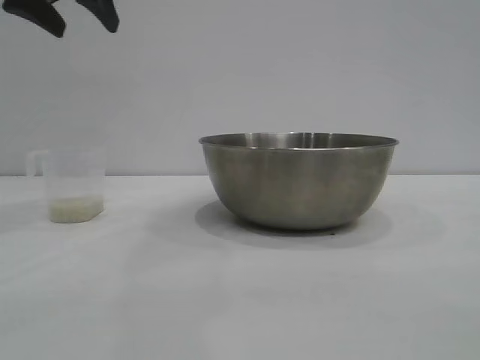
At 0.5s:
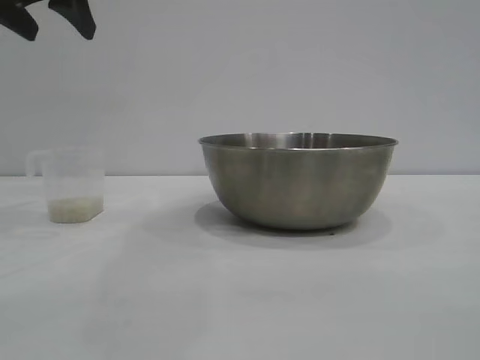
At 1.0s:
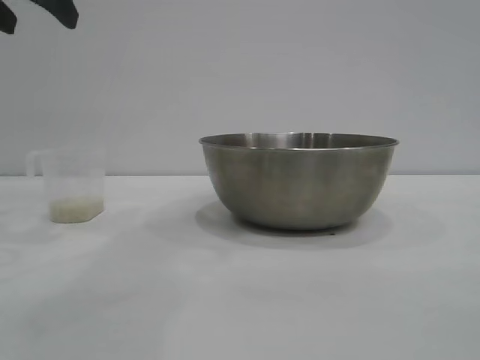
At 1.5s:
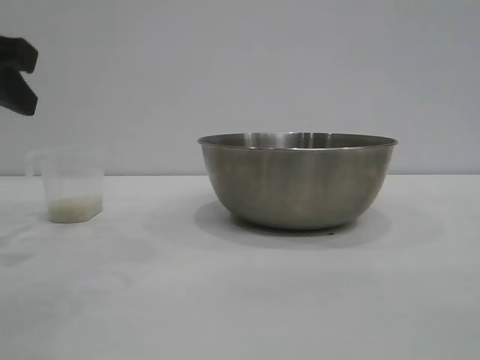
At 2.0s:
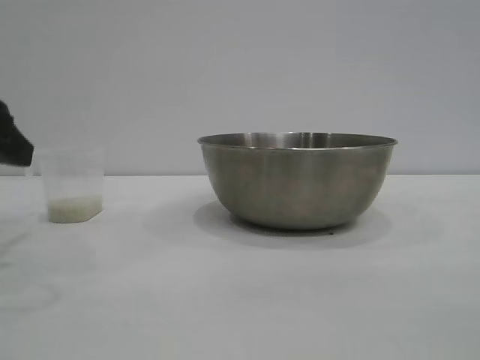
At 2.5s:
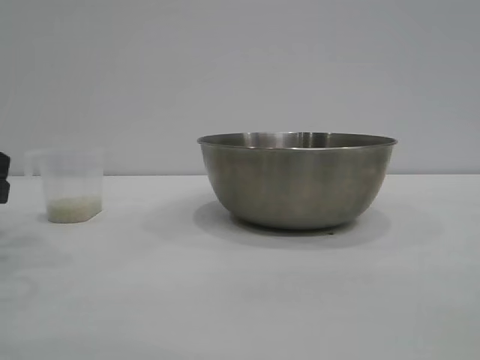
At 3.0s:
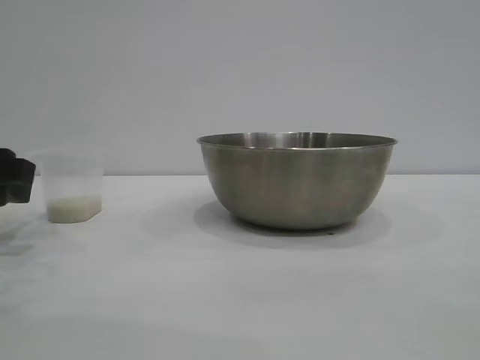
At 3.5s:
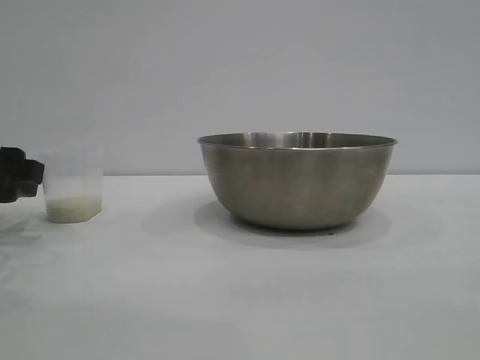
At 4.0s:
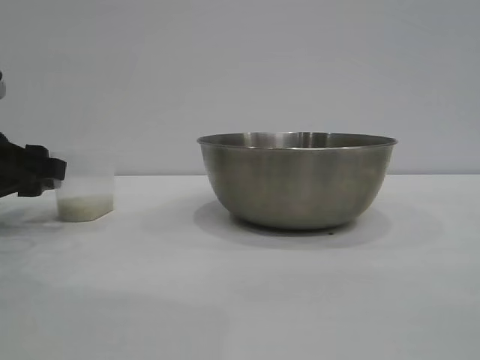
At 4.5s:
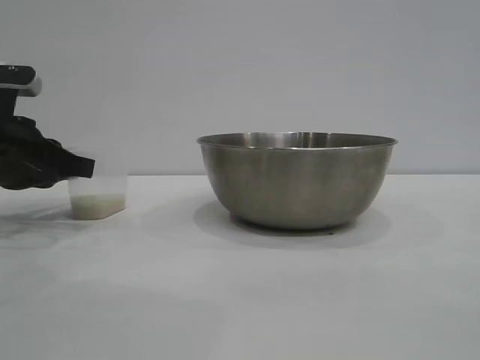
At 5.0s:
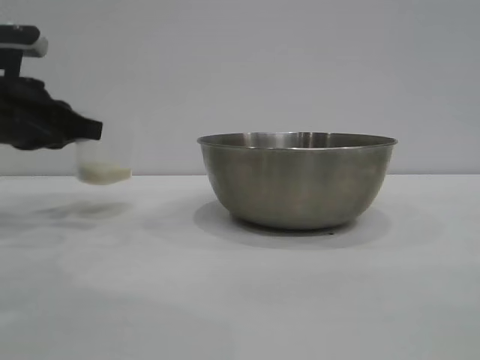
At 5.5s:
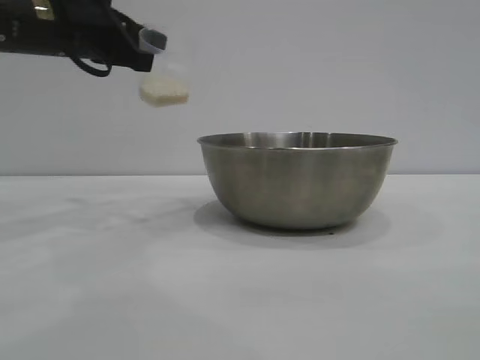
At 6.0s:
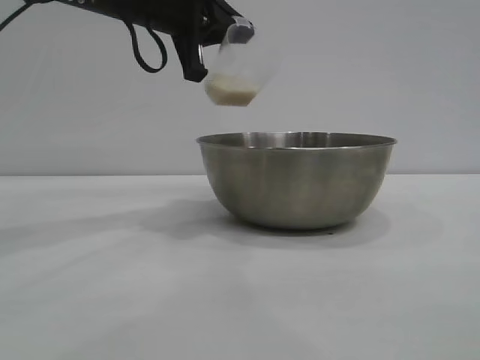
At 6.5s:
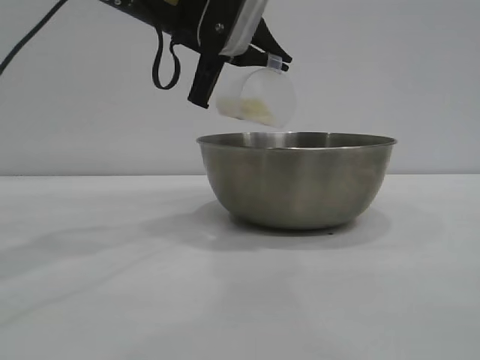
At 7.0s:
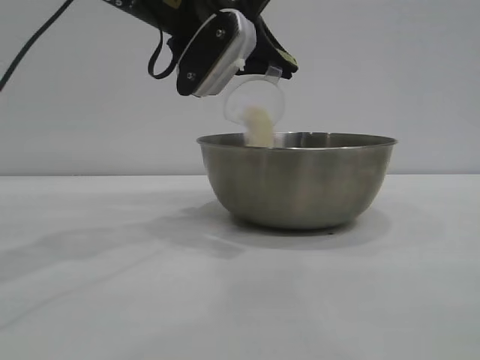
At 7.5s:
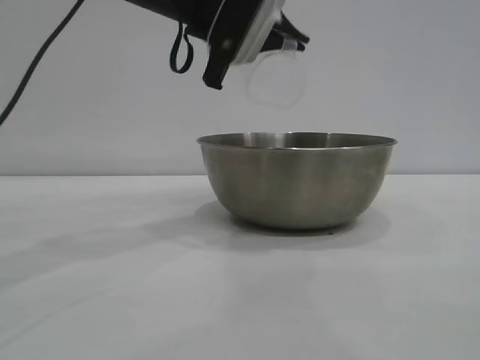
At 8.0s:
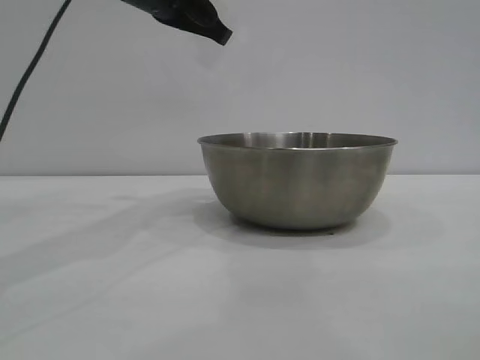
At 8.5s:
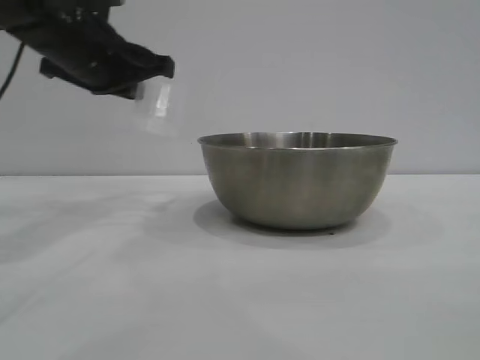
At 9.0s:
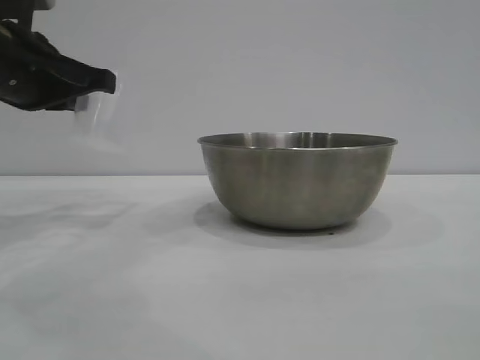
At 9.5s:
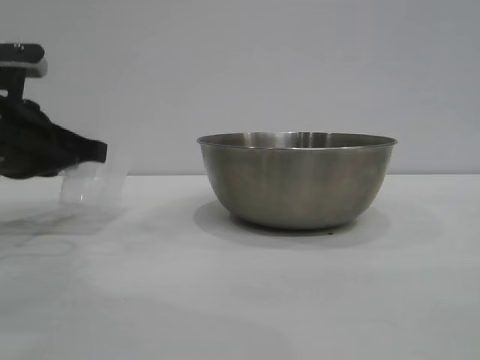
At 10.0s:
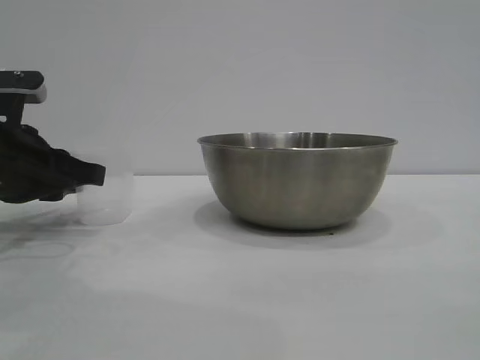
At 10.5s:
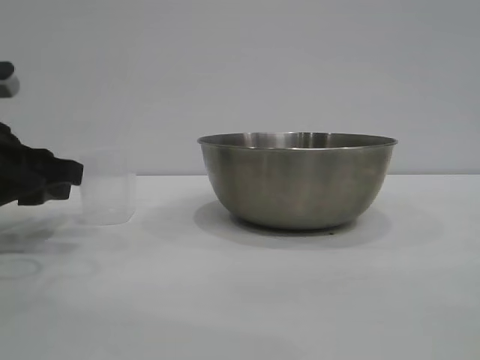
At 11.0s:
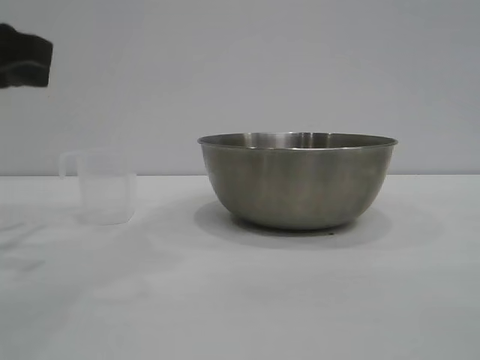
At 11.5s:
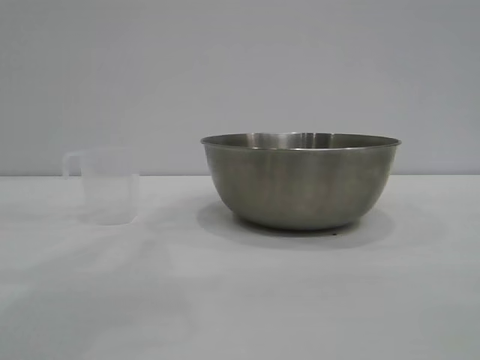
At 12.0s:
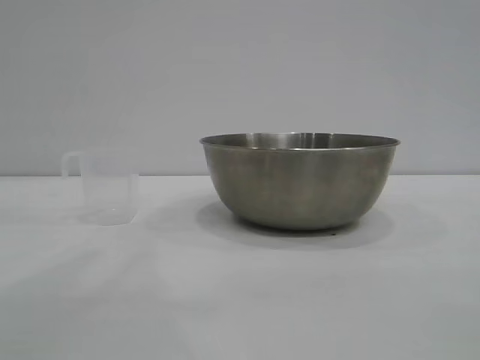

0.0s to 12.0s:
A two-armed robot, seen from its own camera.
Task of the whole recording: the right gripper grasp the rice container and place it in the center of the table, the left gripper grasp the rice scoop and pour the rice into the rice container.
Step, 0.0s to 5.0s: Pick up the cup with rice in it with the left gripper.
Step, 5.5s to 7.5s: Pour the rice from the cup into the bowl with the left gripper.
Step, 8.0s to 10.5s: Place the cup on the table with the left gripper.
